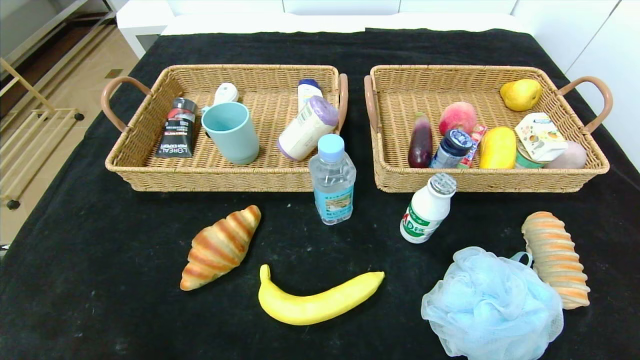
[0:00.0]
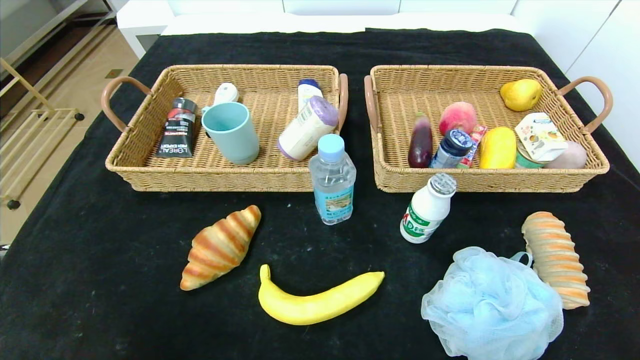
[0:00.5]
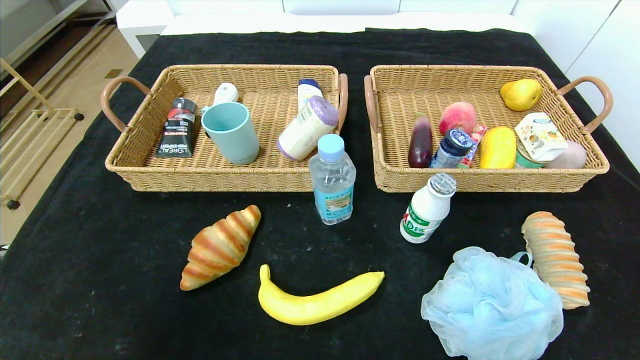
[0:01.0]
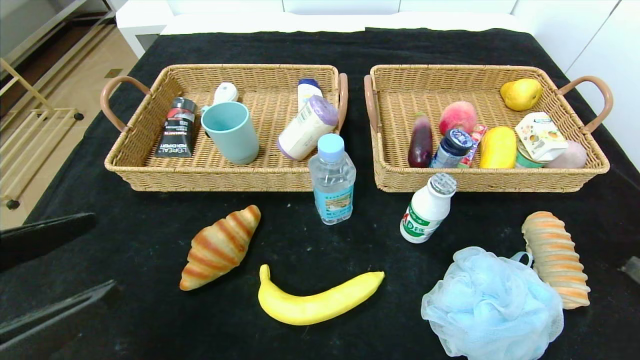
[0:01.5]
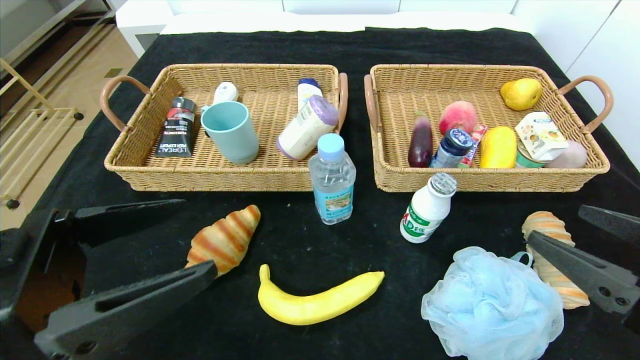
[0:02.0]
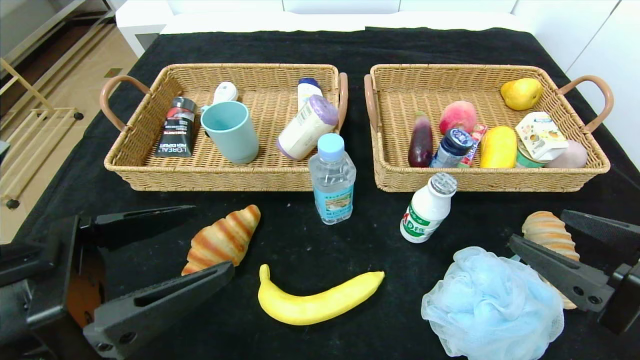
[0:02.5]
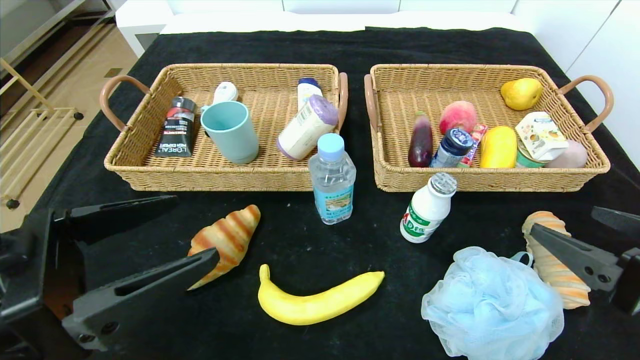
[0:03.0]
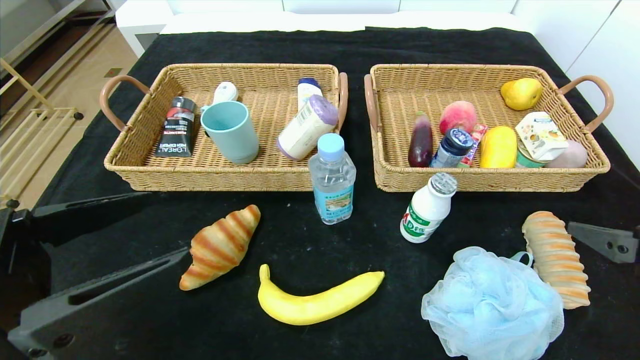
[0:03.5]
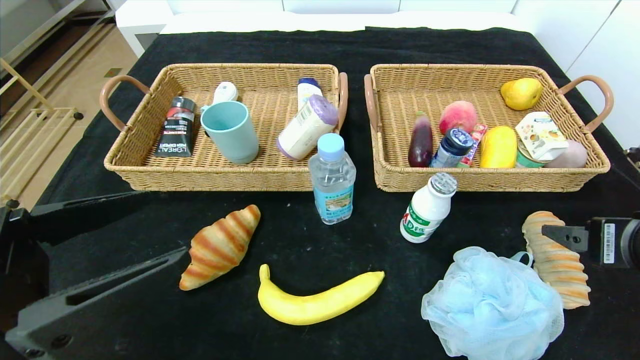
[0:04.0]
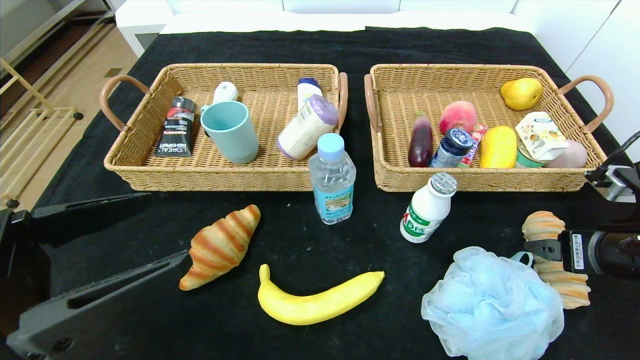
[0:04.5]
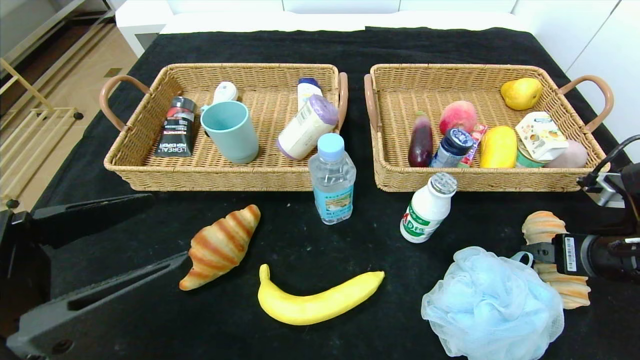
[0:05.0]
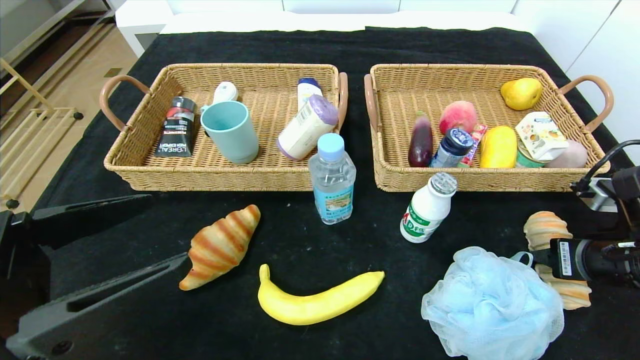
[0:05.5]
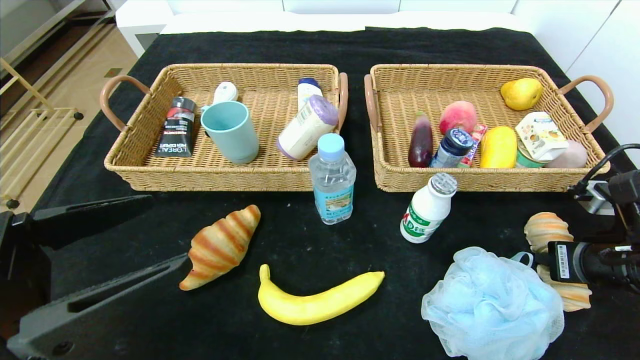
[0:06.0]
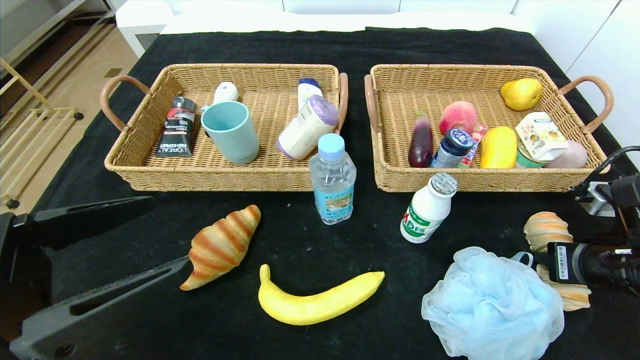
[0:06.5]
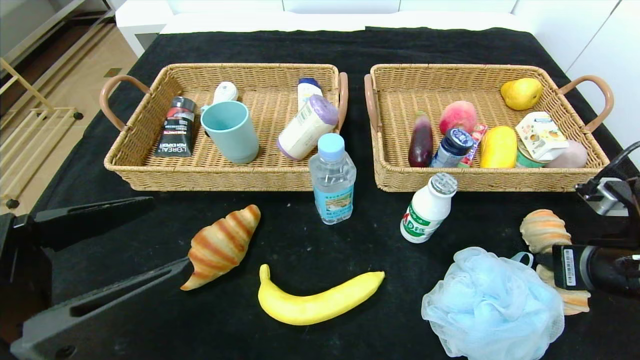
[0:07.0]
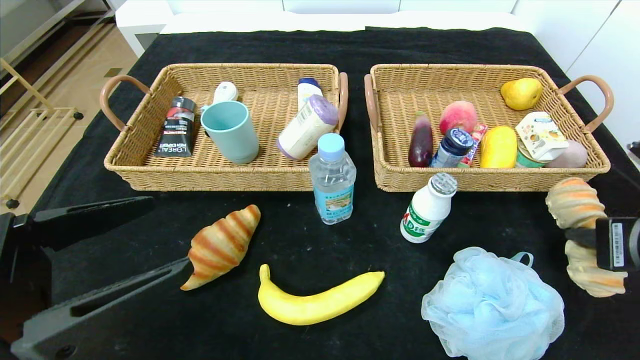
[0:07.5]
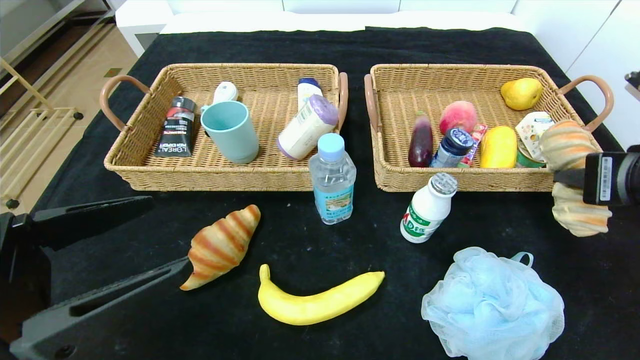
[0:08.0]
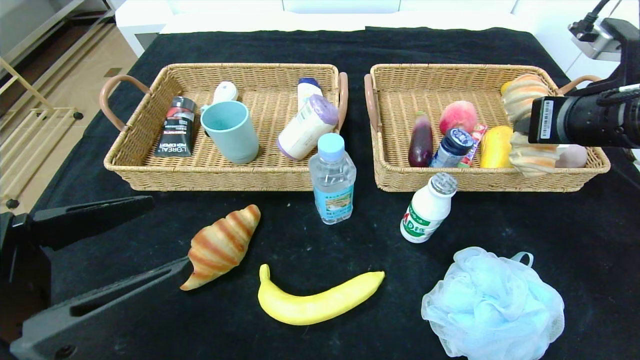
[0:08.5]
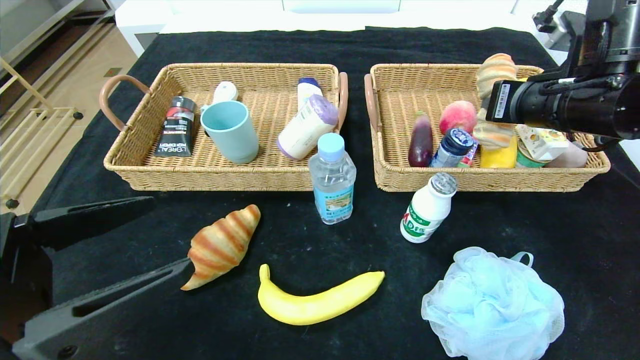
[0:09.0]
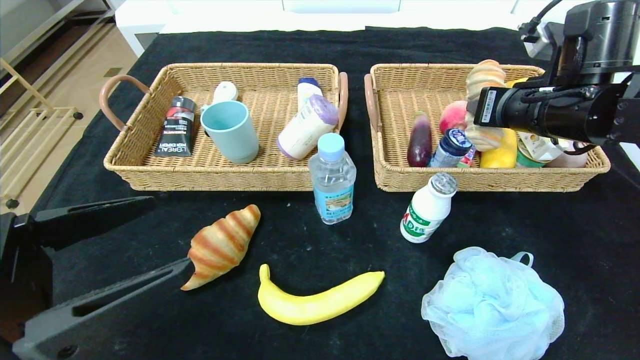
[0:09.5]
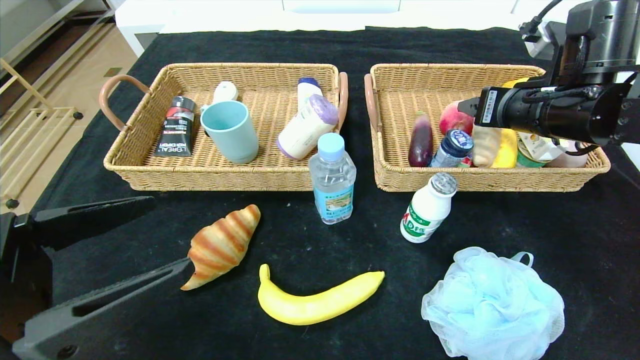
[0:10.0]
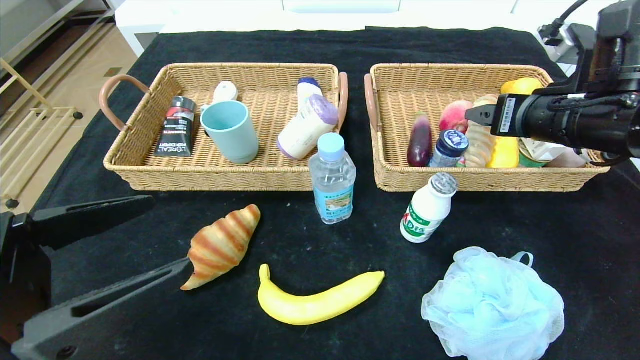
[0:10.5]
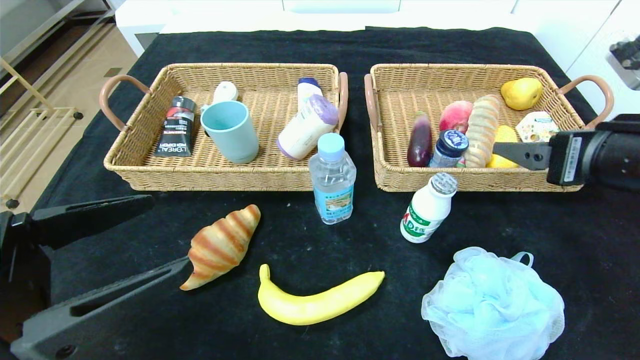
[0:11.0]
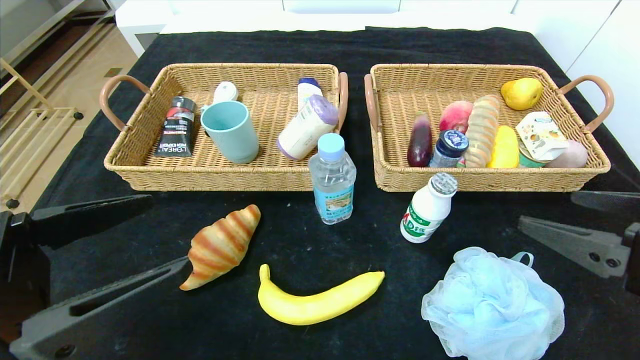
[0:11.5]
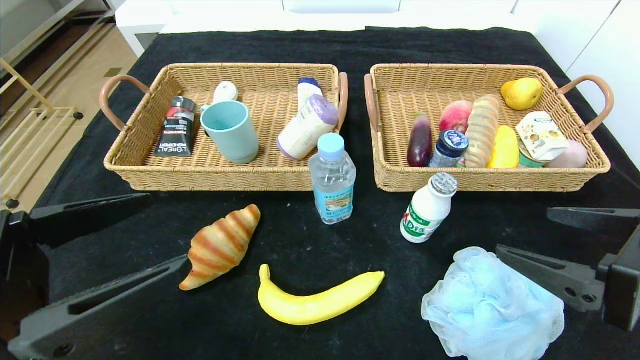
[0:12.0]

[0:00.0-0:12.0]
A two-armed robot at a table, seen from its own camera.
Step, 0:00.0 to 0:10.0: Grasp the long bread and put it in the right basket.
0:00.0 to 0:02.0: The left gripper heads upward and forward, covering approximately 20 cm, while the right gripper heads upward, forward and to the left, covering roughly 20 cm.
0:02.0 to 0:04.0: The right gripper is displaced forward by approximately 5 cm.
0:04.0 to 0:06.0: The right gripper goes roughly 5 cm downward, and closes.
0:06.0 to 0:08.0: The right gripper travels upward by roughly 10 cm.
0:08.0 to 0:10.0: The right gripper shifts approximately 15 cm forward, and opens its fingers.
0:10.0 to 0:12.0: The right gripper travels backward by approximately 20 cm.

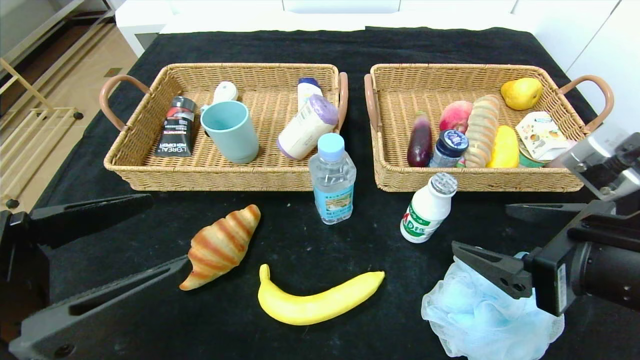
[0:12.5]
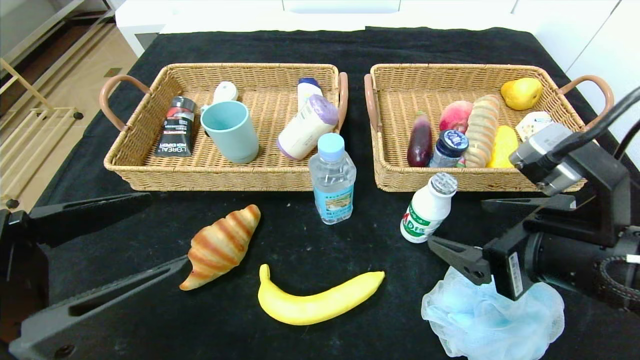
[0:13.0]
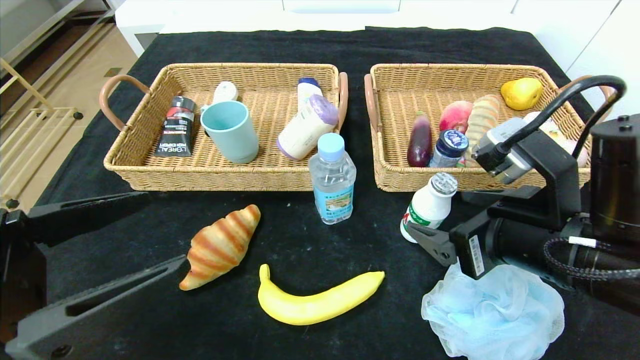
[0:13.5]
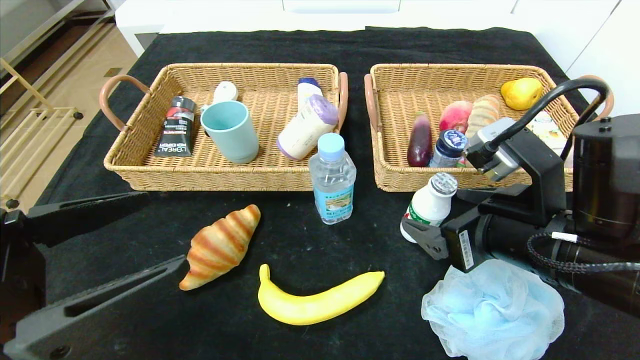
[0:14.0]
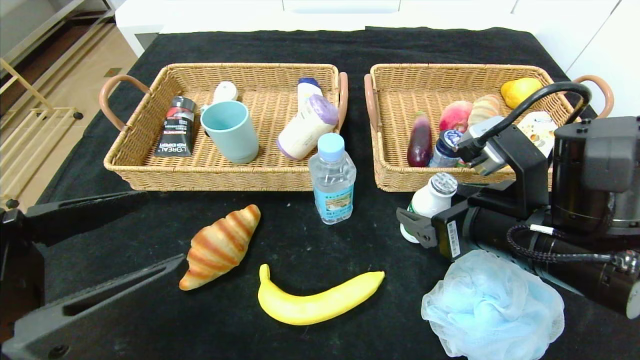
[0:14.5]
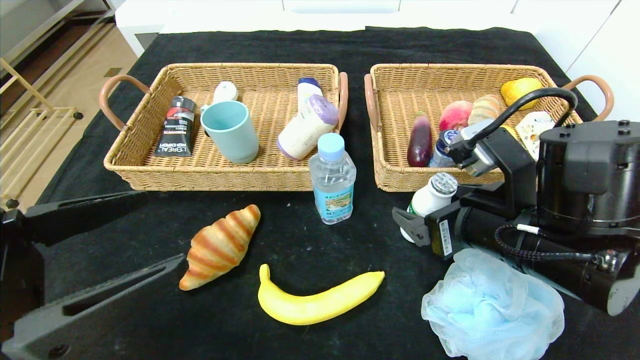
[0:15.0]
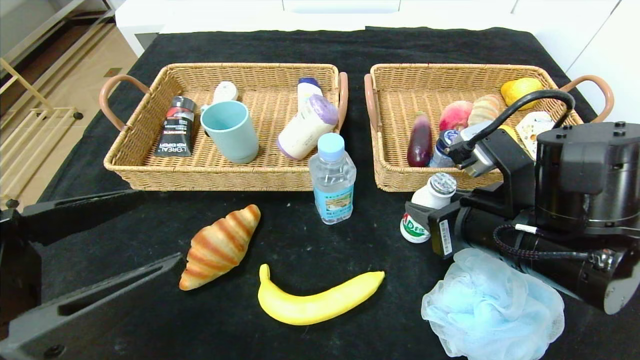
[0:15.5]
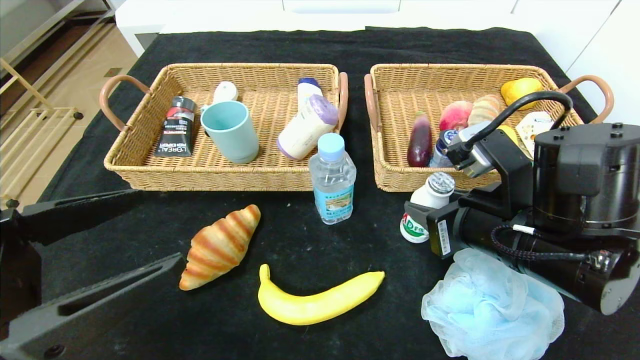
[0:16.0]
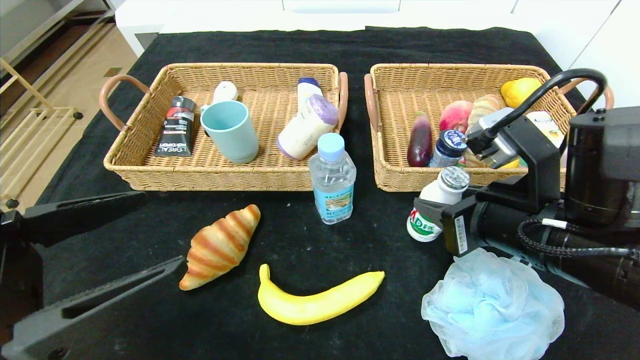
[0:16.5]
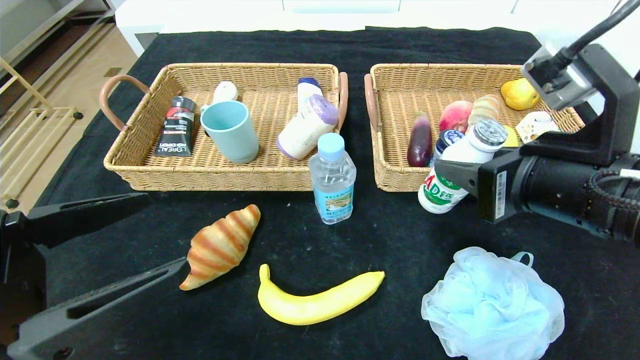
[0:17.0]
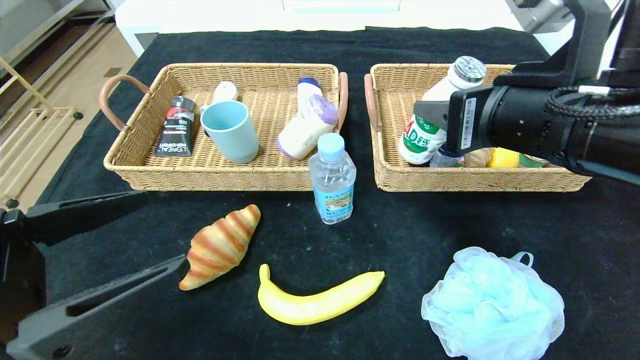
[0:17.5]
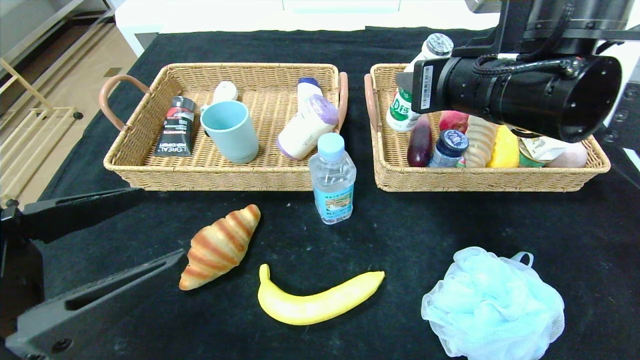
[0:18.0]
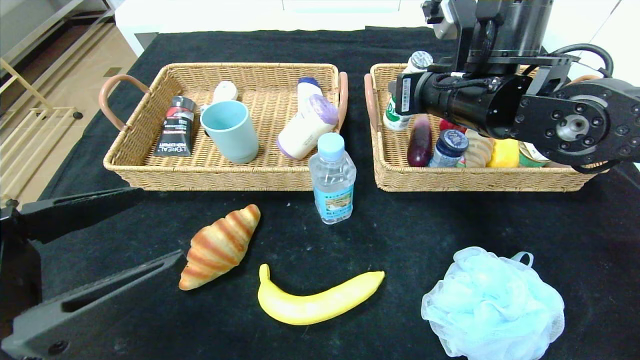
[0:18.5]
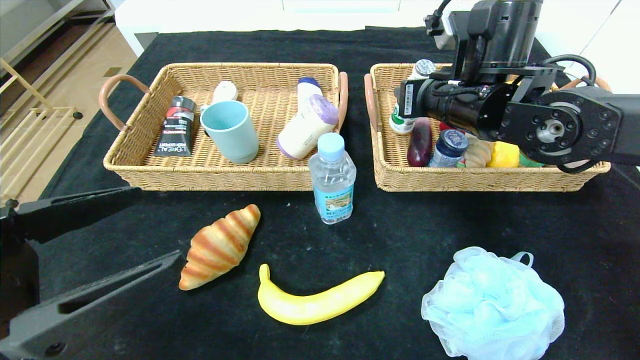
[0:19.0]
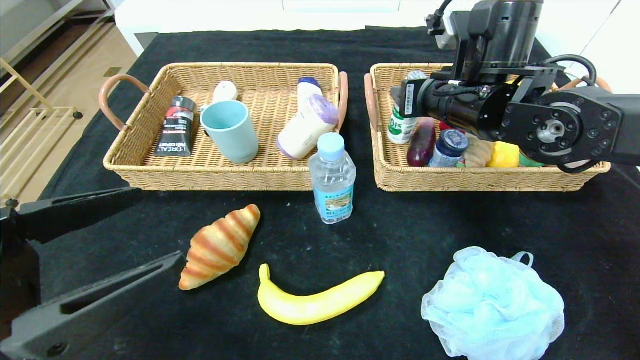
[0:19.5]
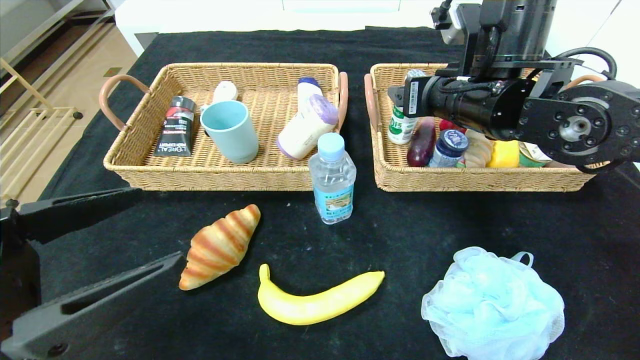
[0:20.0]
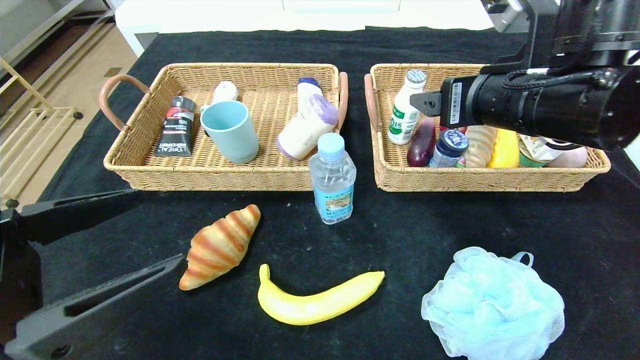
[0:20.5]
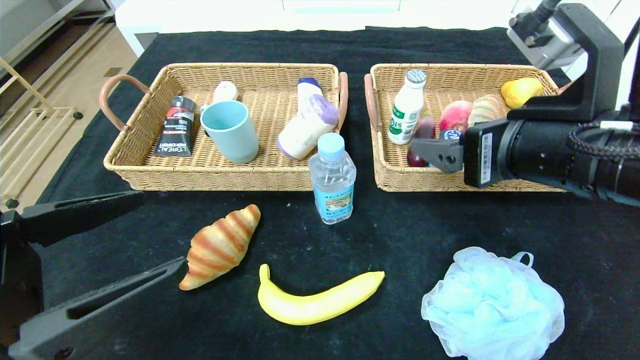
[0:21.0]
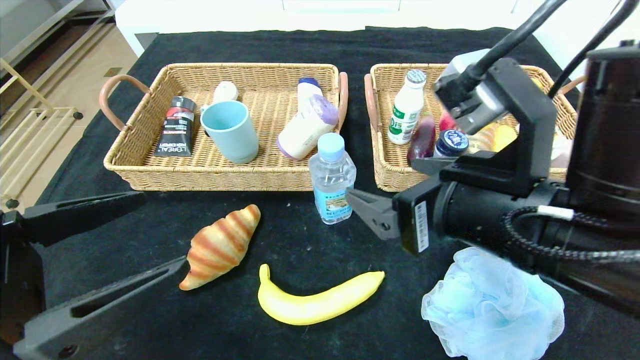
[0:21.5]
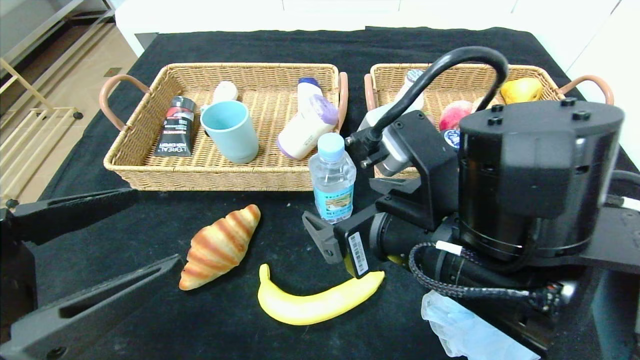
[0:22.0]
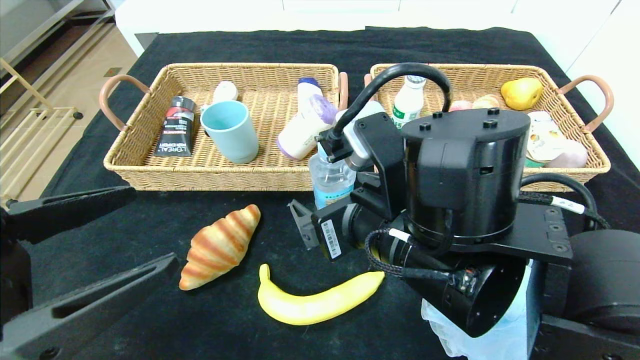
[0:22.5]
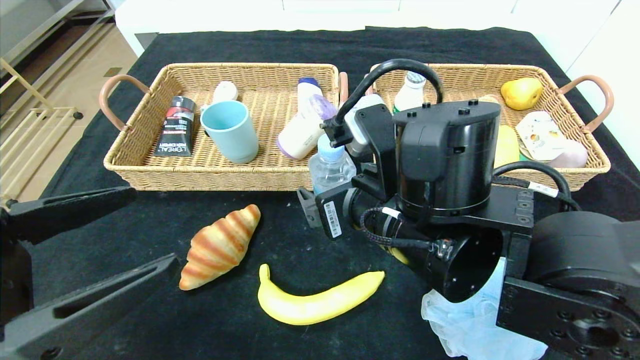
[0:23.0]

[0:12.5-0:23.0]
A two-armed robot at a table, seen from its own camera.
Step, 0:12.5 to 0:19.5: Grasp the ad milk and put it in the right basket.
0:12.5 to 0:14.5: The right gripper shifts about 10 cm forward and to the left.
0:14.5 to 0:16.5: The right gripper closes.
0:16.5 to 0:19.0: The right gripper is displaced forward and upward by about 15 cm.
0:19.0 to 0:21.0: The right gripper heads backward, covering roughly 15 cm, and opens.
0:21.0 to 0:23.0: The right gripper moves to the left and downward, some 15 cm.
